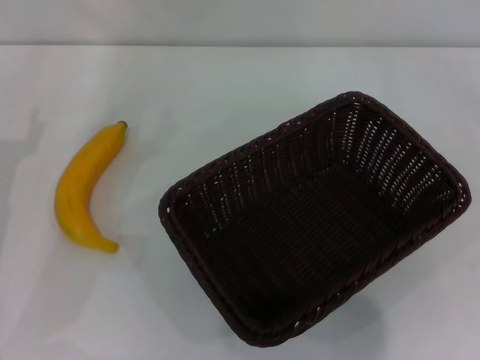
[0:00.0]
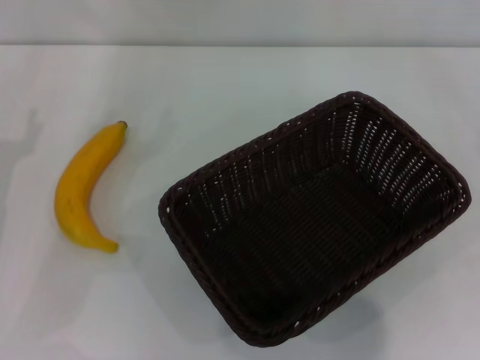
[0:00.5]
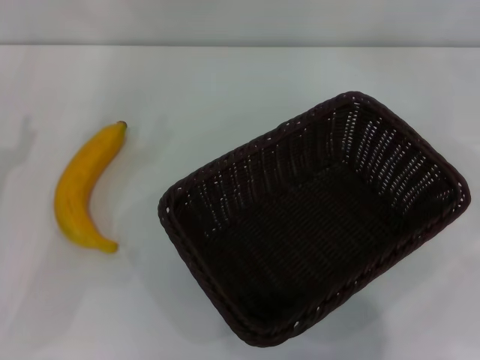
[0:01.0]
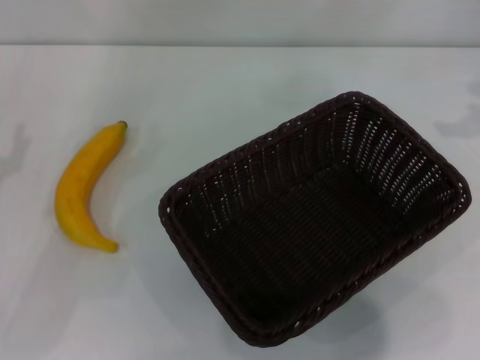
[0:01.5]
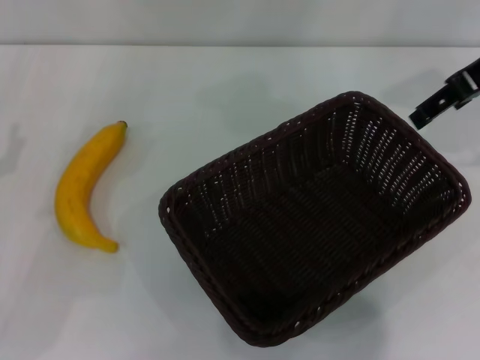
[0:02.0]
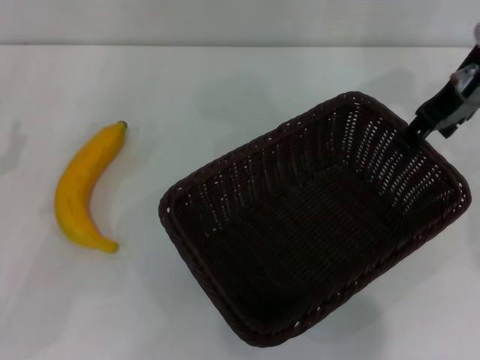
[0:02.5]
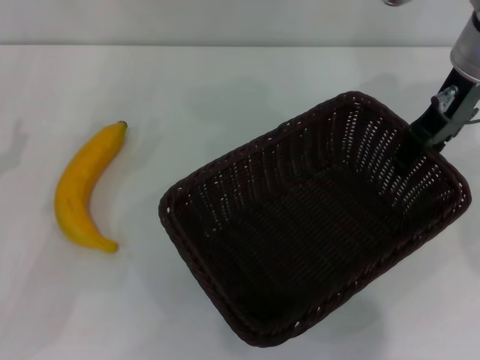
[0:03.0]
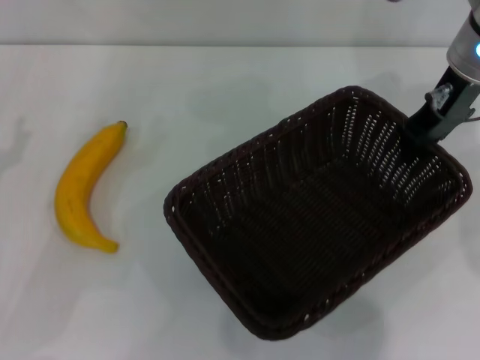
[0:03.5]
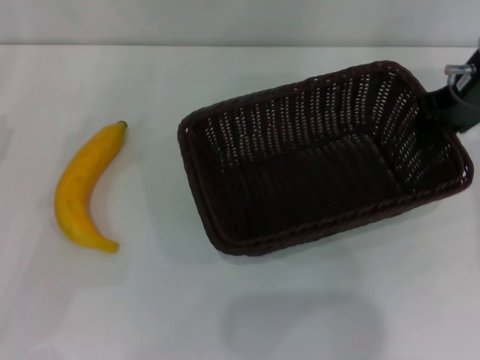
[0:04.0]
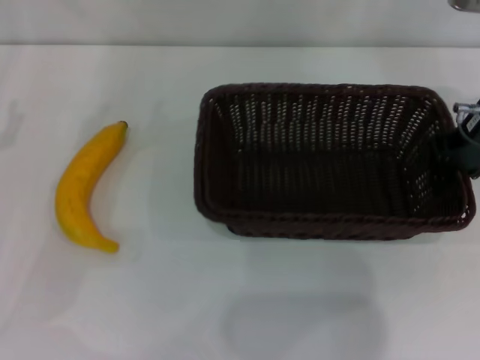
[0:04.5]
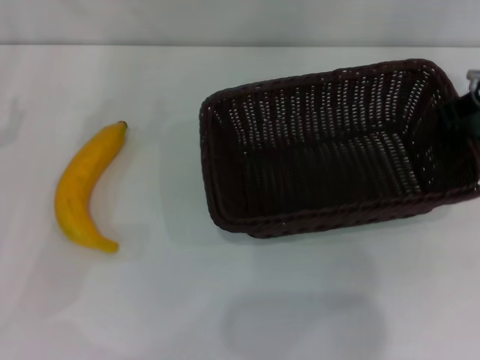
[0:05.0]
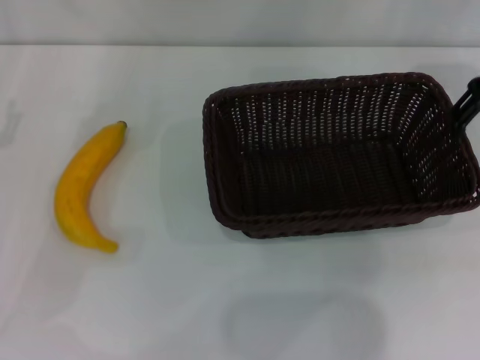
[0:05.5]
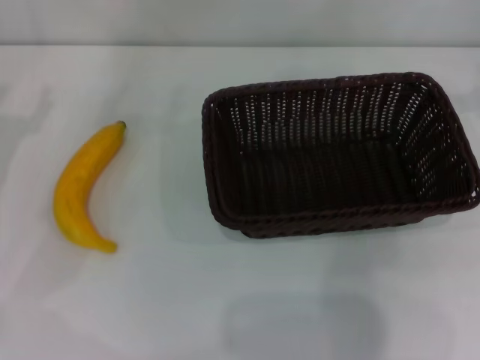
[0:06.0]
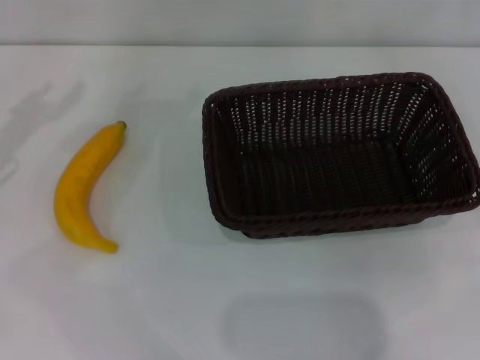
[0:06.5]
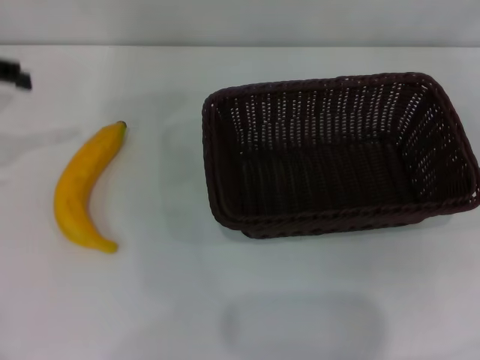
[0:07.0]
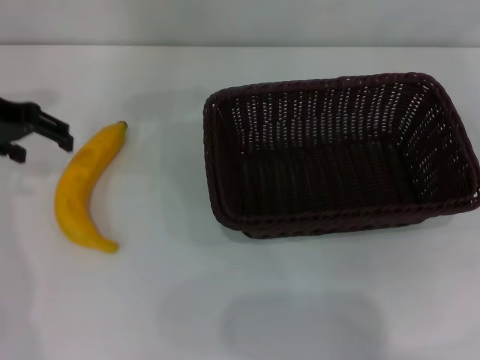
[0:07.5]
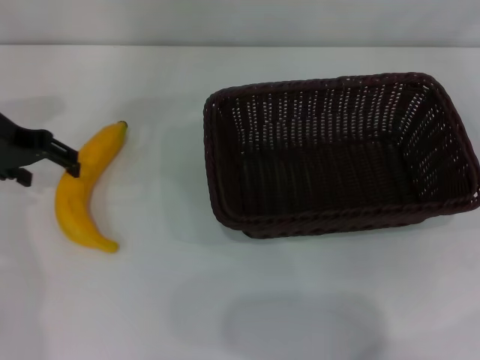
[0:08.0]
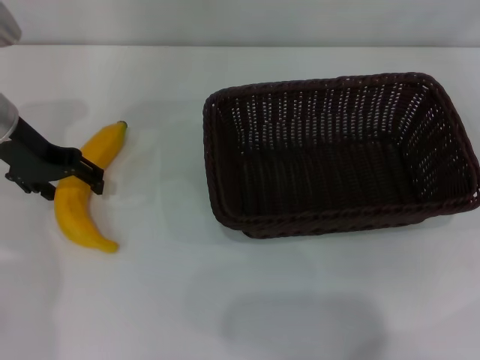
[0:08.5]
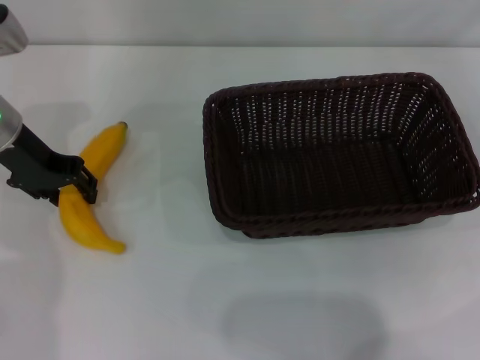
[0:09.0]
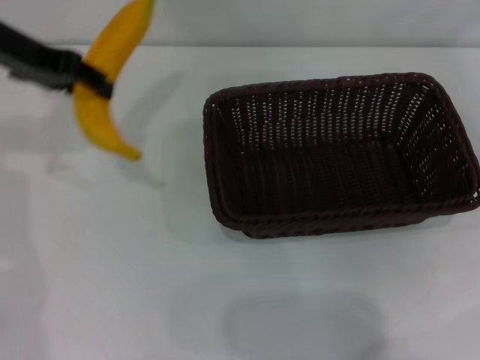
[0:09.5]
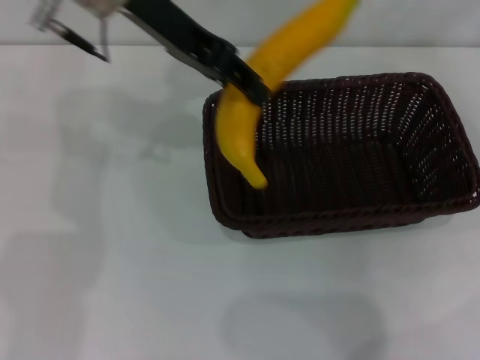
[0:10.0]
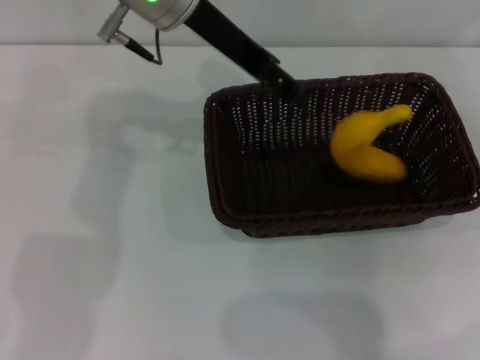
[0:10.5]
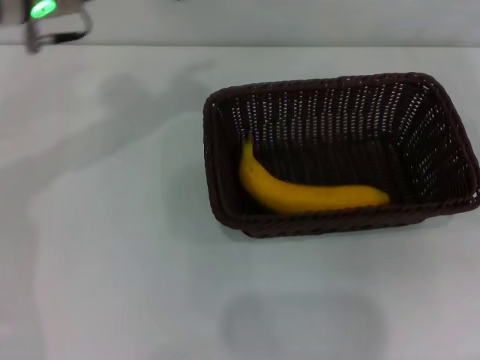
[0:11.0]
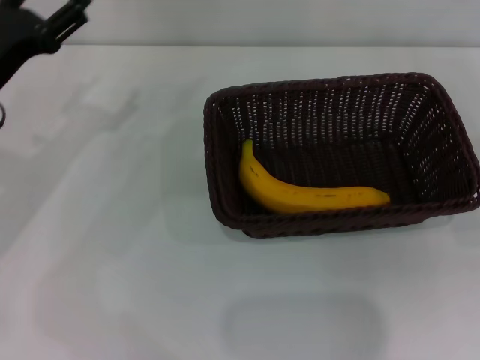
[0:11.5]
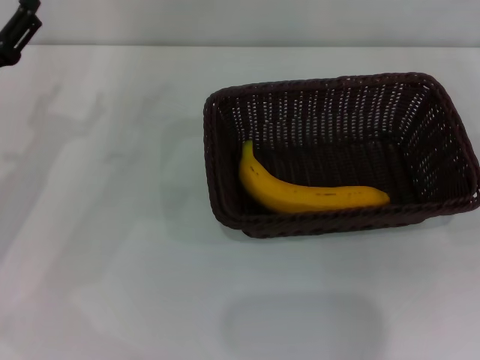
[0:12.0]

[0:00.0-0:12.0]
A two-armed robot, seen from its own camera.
Step, 0:00.0 to 0:03.5: Pick up the dark basket with the right gripper.
Step, 0:04.0 to 0:05.5: Place the dark basket in the center of view with the right gripper.
Step, 0:06.0 to 0:09.0: Pick up the banana with the left gripper.
Step, 0:09.5 to 0:10.0: Place the banana into the dark basket with the left gripper.
0:00.0 to 0:02.0: The right gripper goes roughly 35 cm to the left, upward and forward.
0:02.0 to 0:04.0: The right gripper changes place by about 5 cm, and closes its fingers.
0:04.0 to 0:06.0: The left gripper ends up roughly 5 cm from where it was. Meanwhile the right gripper moves to the right and upward, about 15 cm, and opens its fingers.
0:06.0 to 0:08.0: The left gripper is displaced forward, upward and to the right by about 10 cm. Meanwhile the right gripper travels downward, to the right and backward by approximately 15 cm.
0:08.0 to 0:10.0: The left gripper shifts about 20 cm to the right and upward, and closes up.
0:10.0 to 0:12.0: The right gripper goes approximately 10 cm downward and backward. The left gripper is displaced downward, to the left and backward by roughly 25 cm, and opens its fingers.
